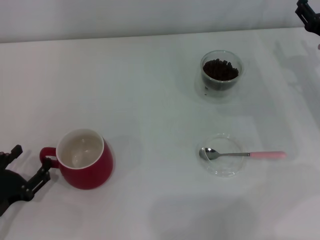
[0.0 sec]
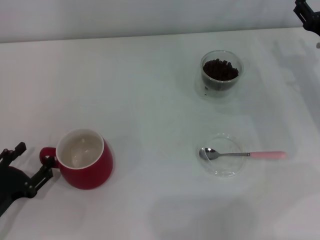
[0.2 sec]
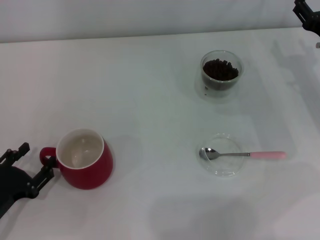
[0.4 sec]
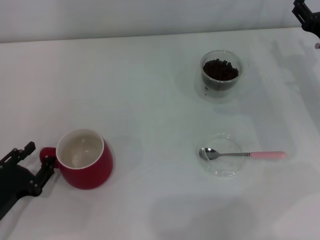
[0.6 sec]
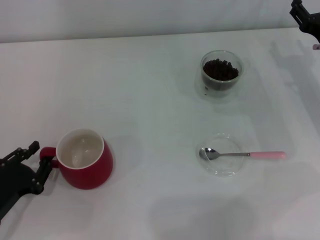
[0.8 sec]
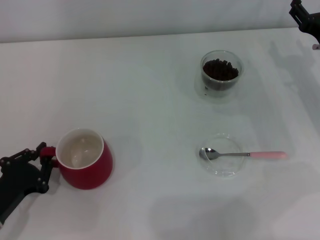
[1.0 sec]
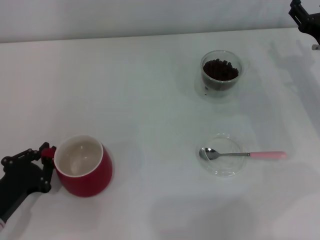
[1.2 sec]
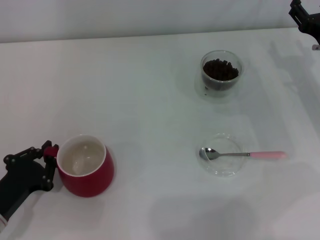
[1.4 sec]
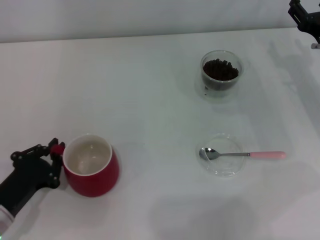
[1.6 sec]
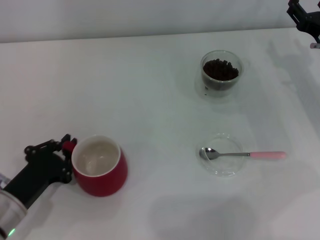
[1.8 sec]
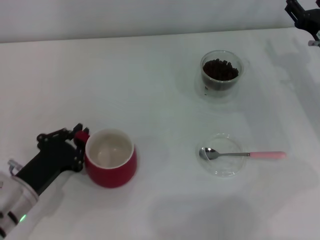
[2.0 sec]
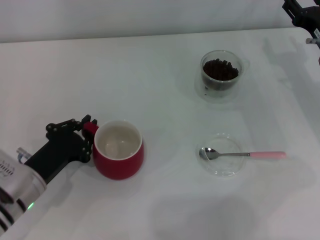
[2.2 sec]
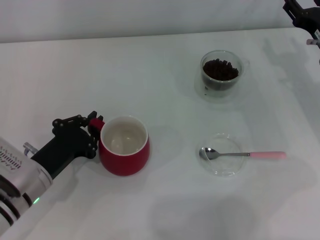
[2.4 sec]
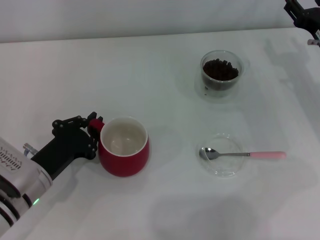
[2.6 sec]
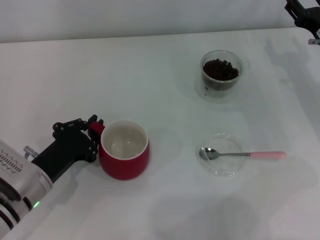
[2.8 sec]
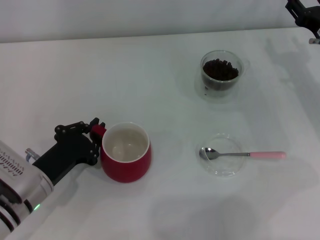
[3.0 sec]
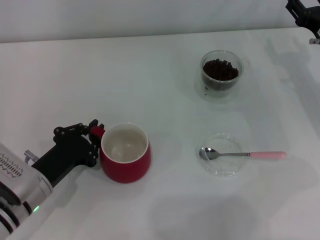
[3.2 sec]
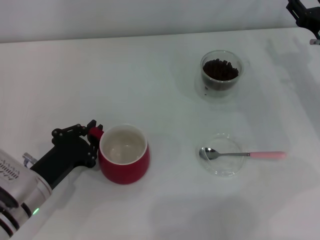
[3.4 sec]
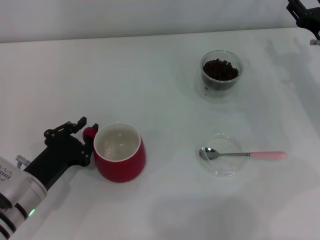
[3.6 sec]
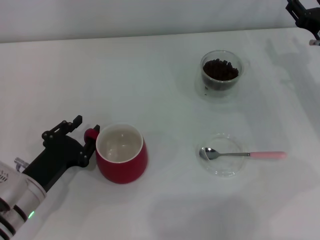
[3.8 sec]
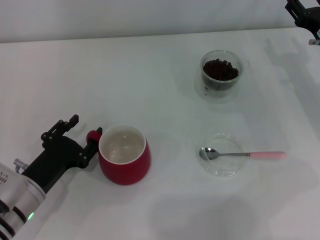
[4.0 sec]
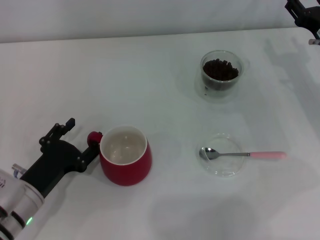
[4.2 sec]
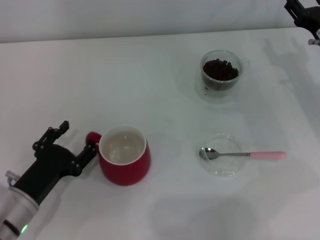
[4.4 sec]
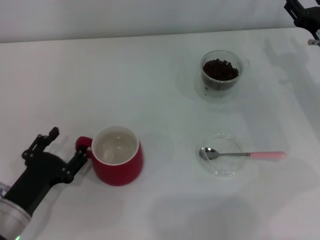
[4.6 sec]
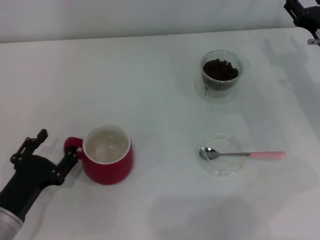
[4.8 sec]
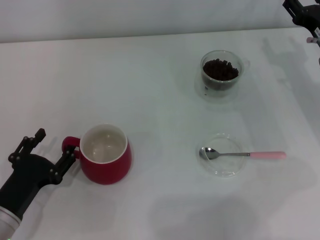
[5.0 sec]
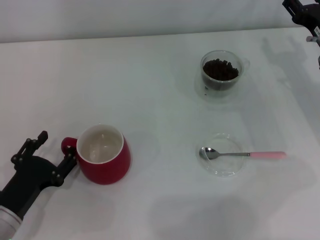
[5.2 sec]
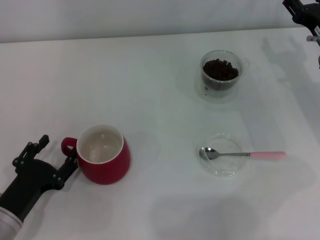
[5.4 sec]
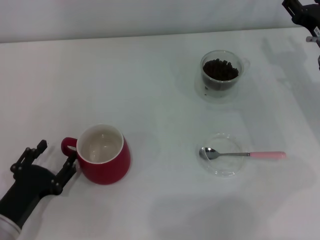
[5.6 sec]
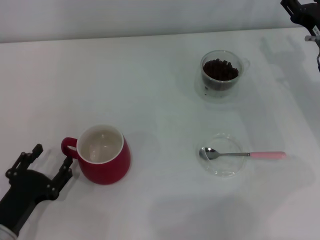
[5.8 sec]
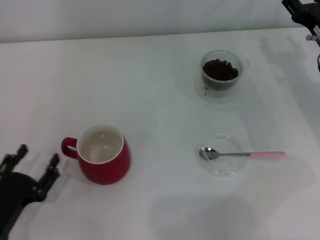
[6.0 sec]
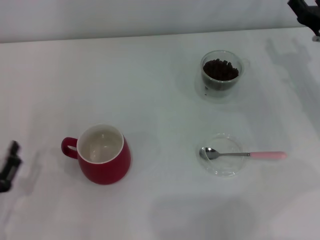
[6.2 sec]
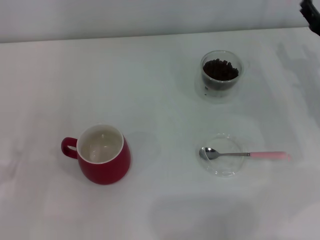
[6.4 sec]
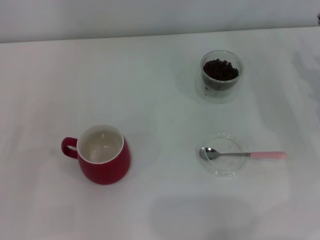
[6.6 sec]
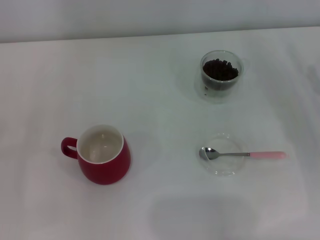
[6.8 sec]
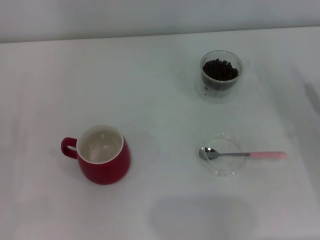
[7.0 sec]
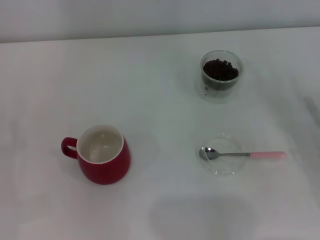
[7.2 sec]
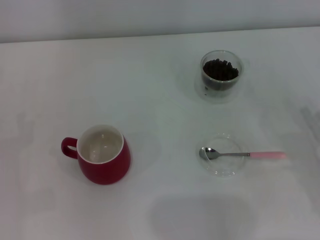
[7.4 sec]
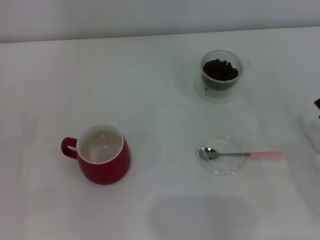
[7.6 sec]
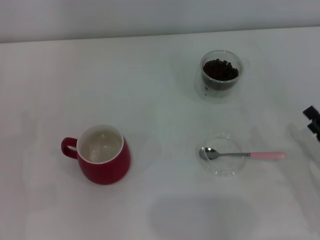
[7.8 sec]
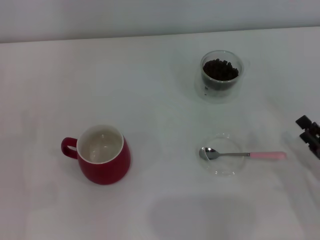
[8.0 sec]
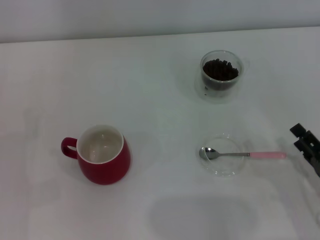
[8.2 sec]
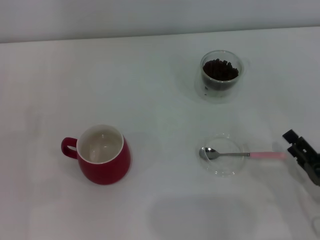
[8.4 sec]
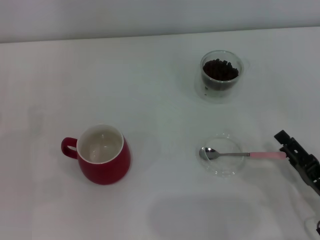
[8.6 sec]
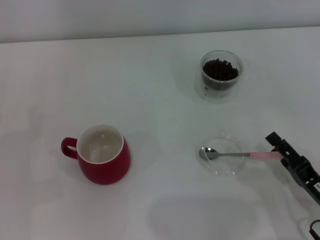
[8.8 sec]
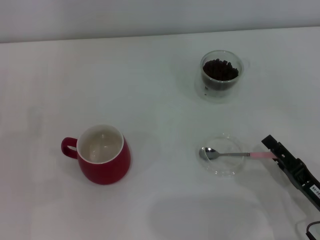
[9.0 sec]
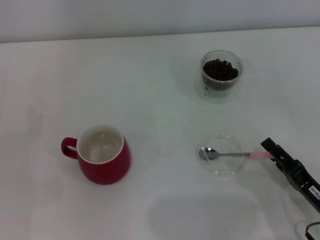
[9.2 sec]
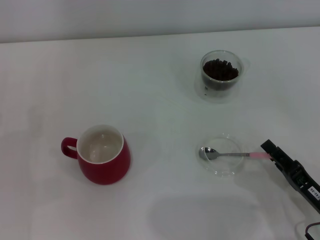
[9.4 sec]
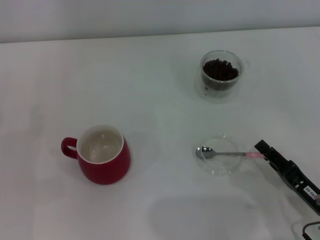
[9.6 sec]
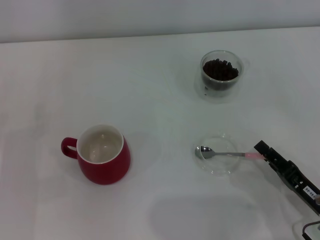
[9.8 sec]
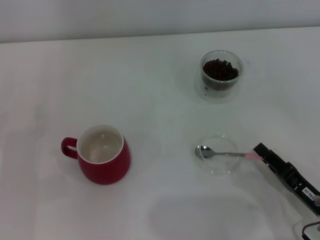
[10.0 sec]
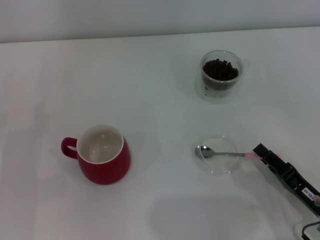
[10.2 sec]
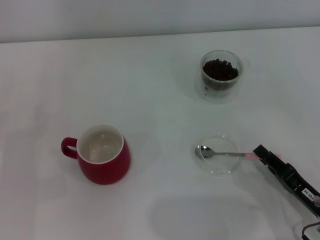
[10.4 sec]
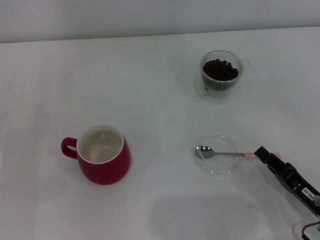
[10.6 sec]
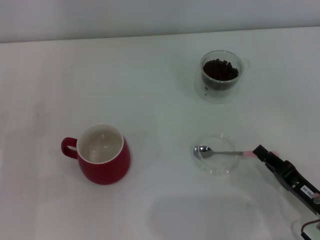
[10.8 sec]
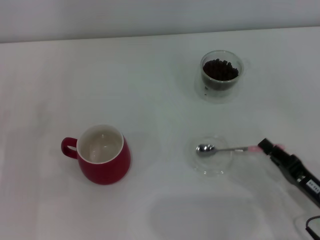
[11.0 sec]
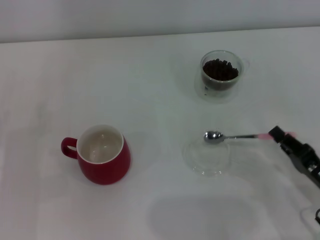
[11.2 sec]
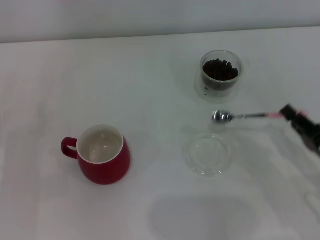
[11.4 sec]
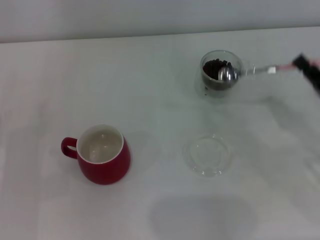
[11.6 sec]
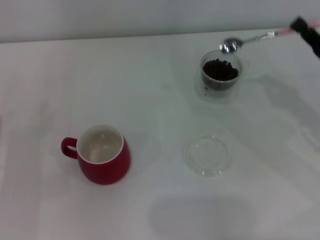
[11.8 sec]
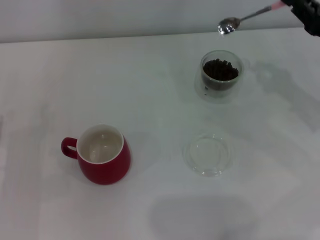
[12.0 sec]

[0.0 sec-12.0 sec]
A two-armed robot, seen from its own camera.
Task of the whole recording: Use a pink spoon to take out the coffee beans from the glass and pour them into the red cup.
Step, 0.0 sec to 5.8 sec: Move the cup to the center of view with the left gripper.
Step, 6.2 sec to 11.2 sec: Pick up the spoon with the right gripper.
0.0 sec to 1.6 sec: The left gripper closes up.
1.6 sec to 3.0 sec: The left gripper travels to the right by roughly 5 cm.
3.0 sec to 4.4 sec: The left gripper opens.
4.4 sec to 6.0 sec: The left gripper goes roughly 5 cm backward.
6.0 sec to 7.6 sec: The left gripper is displaced to the left and forward by some 10 cm. Meanwhile the right gripper travels backward by some 20 cm.
7.6 sec to 9.0 sec: The right gripper travels to the left by roughly 10 cm.
9.0 sec to 10.4 sec: The right gripper closes its fingers.
10.4 sec to 12.0 sec: The right gripper heads forward and upward, covering some 20 cm, and closes.

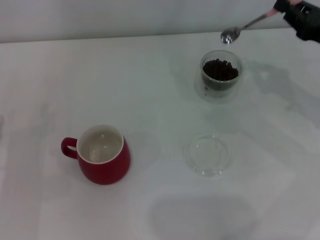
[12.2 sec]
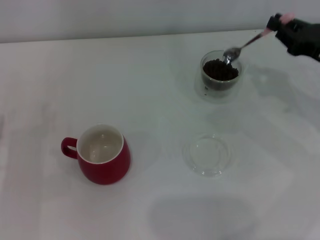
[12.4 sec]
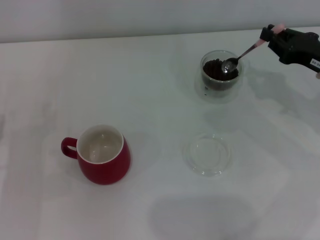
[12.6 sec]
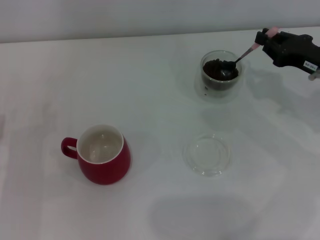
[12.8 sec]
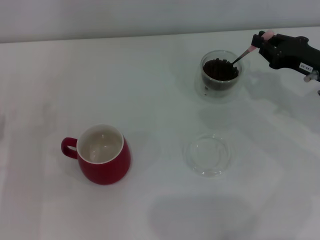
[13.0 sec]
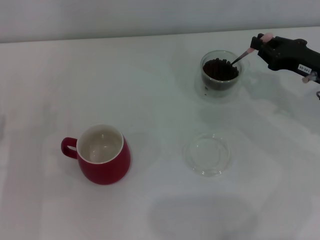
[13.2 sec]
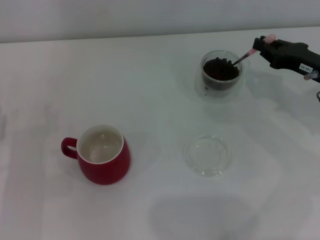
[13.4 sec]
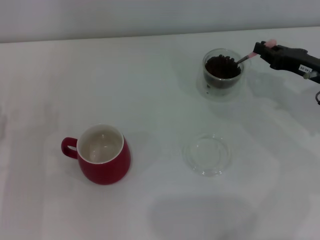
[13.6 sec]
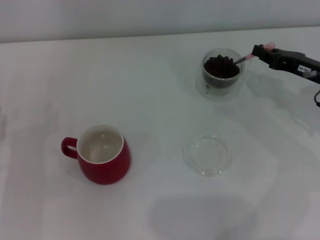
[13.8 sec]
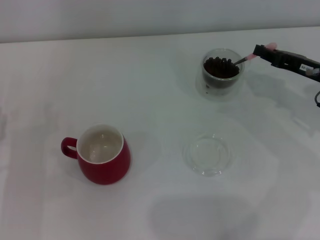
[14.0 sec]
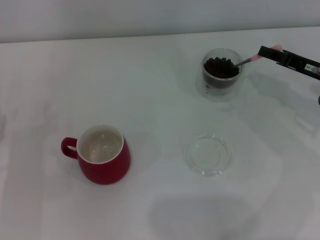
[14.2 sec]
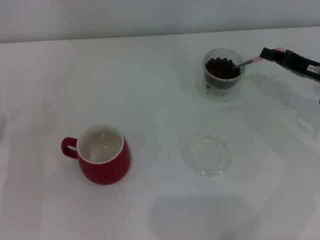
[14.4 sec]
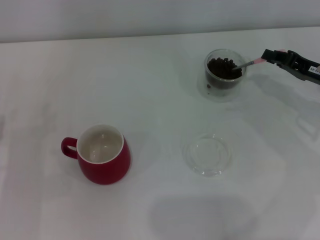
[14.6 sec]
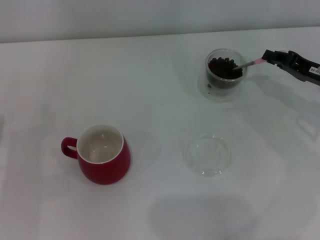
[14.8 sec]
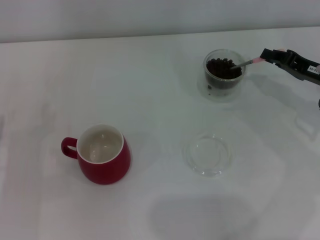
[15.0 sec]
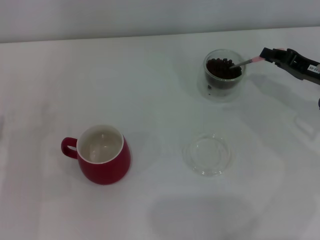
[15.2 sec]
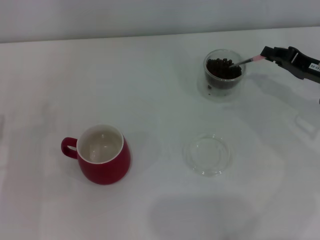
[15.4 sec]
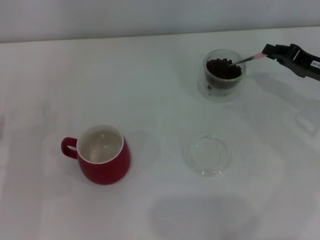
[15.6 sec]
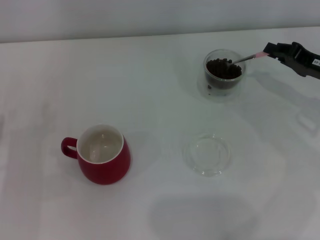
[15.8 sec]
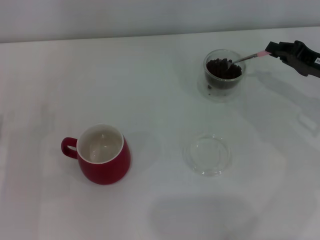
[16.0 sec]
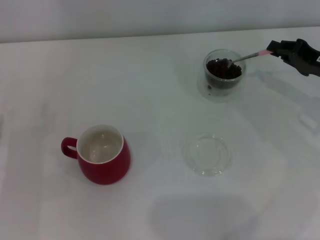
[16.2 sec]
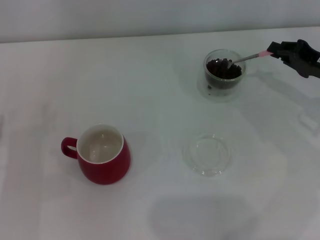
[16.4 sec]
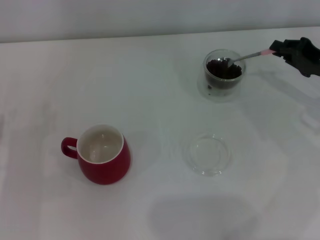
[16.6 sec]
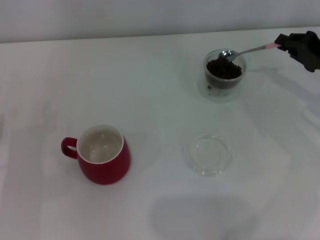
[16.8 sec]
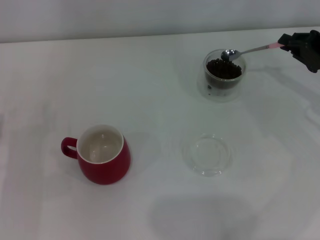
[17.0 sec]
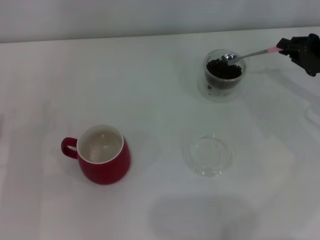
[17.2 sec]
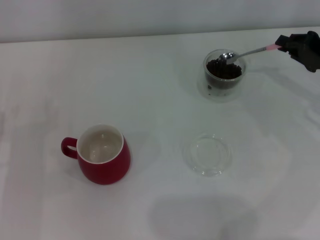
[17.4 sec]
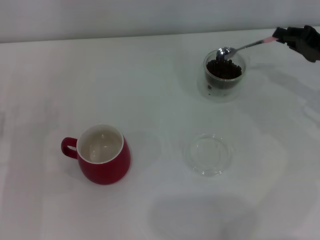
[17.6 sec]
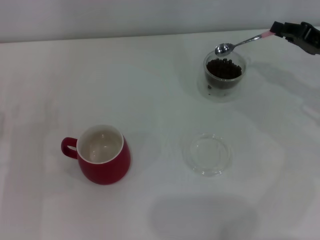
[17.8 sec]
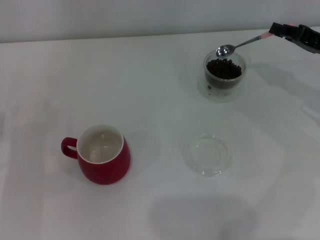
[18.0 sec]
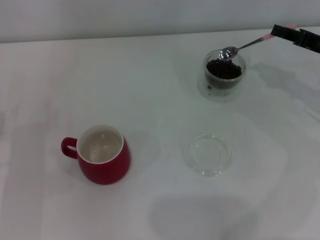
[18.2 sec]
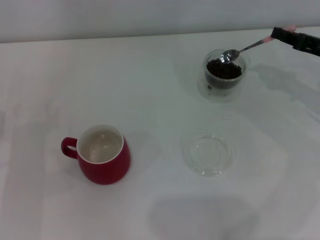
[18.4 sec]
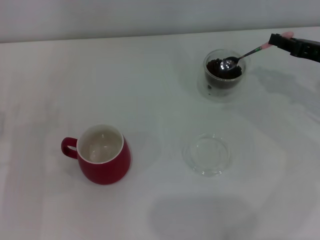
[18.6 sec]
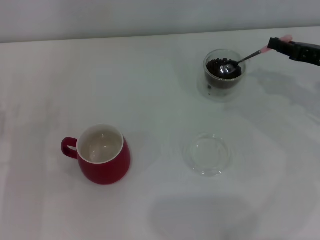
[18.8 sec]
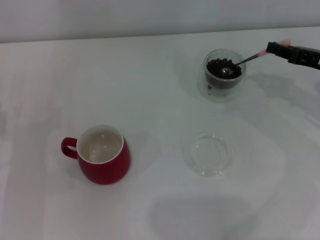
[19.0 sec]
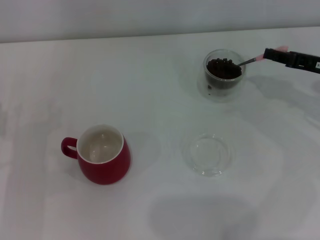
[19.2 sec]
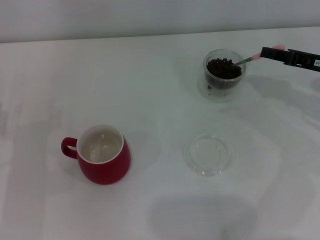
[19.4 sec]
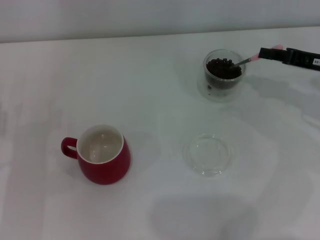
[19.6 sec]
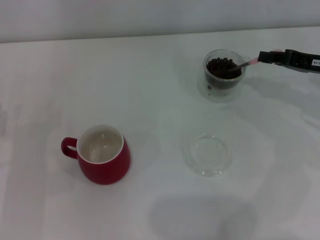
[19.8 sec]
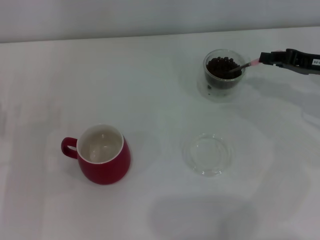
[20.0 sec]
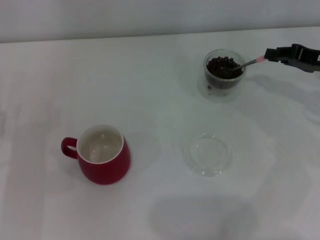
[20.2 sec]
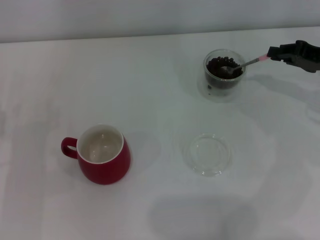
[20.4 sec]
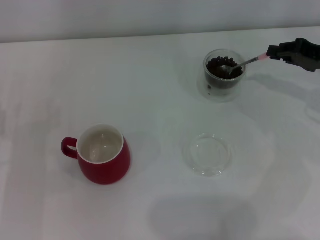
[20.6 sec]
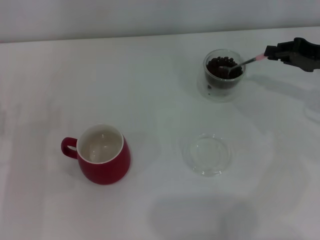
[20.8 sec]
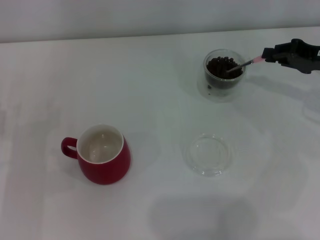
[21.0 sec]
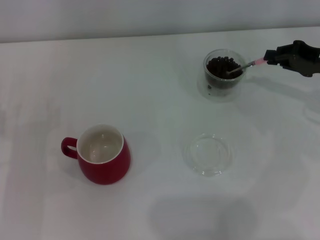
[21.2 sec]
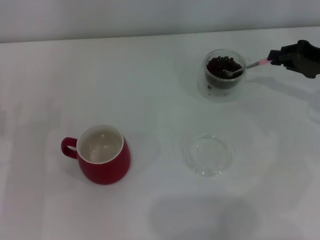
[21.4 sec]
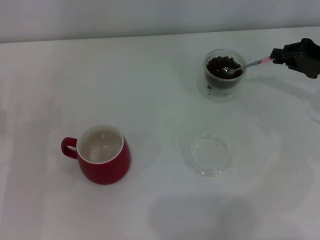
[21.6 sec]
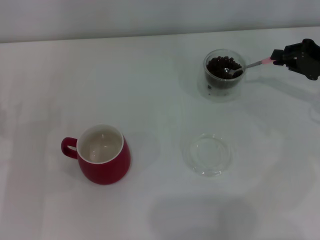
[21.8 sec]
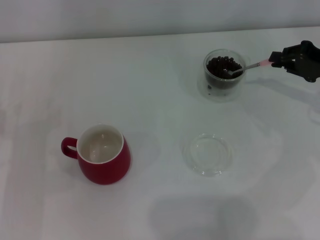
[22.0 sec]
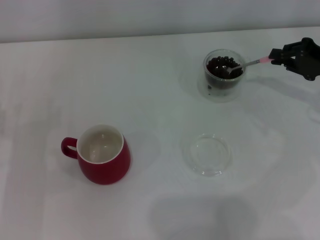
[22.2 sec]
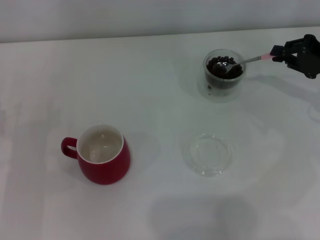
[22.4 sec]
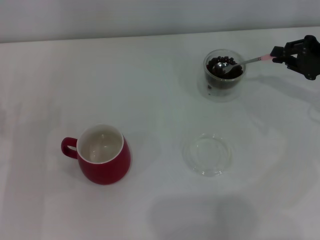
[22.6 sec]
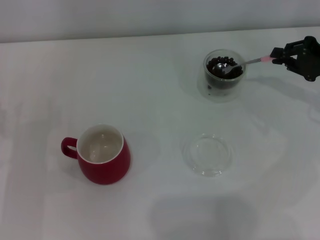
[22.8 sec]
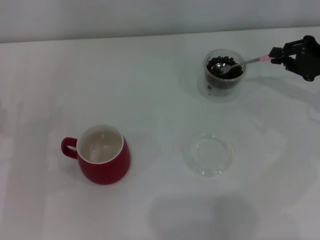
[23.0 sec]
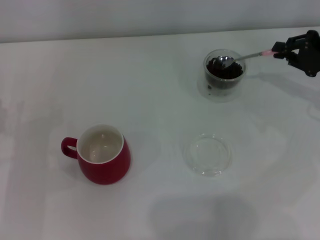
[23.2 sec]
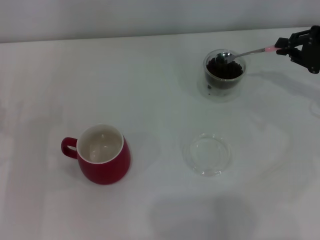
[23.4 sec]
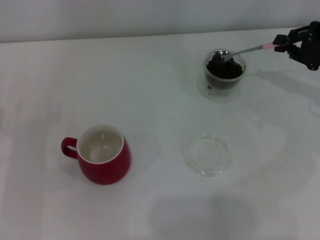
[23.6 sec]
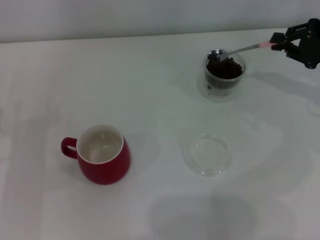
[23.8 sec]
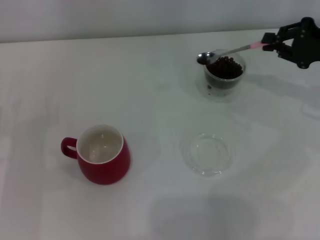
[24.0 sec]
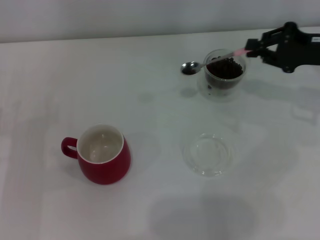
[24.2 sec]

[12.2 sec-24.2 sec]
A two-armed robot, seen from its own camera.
Task of the whole recording: Use a pink spoon to take out the coffee beans from the glass and pour them into the red cup.
15.2 sec to 16.6 sec: The grippers stay close to where they were, moving slightly.
18.2 sec to 19.8 sec: The grippers stay close to where they were, moving slightly.
19.8 sec to 21.2 sec: There are only small adjustments of the grippers.
21.2 sec to 22.6 sec: The grippers move only a little.
22.6 sec to 24.2 sec: The grippers move only a little.
